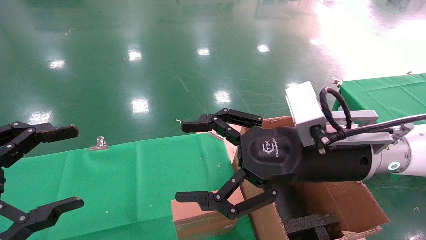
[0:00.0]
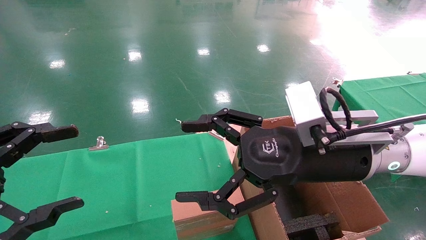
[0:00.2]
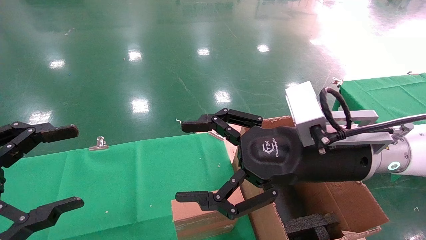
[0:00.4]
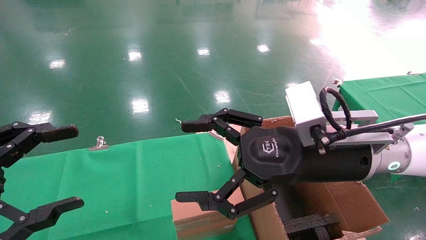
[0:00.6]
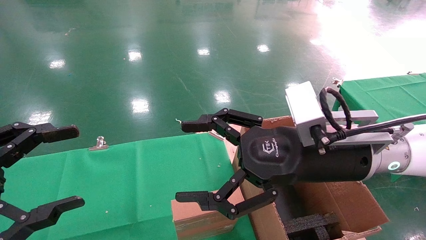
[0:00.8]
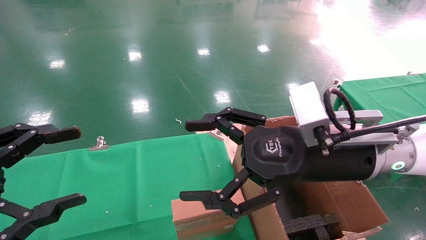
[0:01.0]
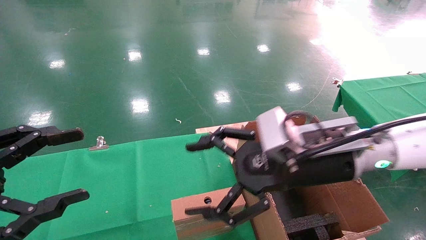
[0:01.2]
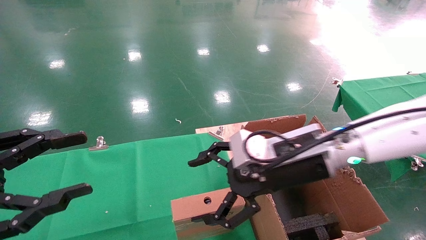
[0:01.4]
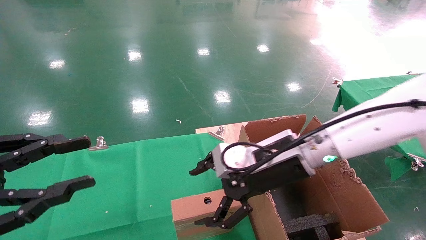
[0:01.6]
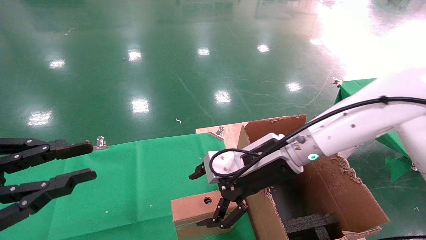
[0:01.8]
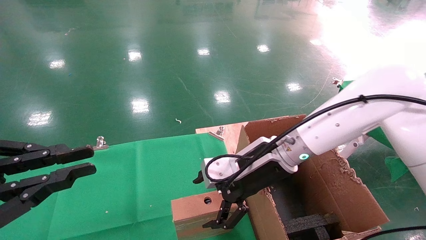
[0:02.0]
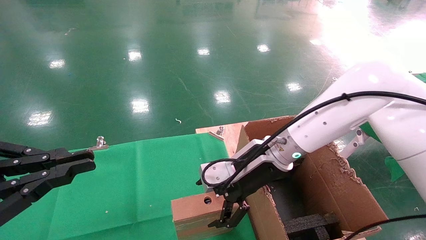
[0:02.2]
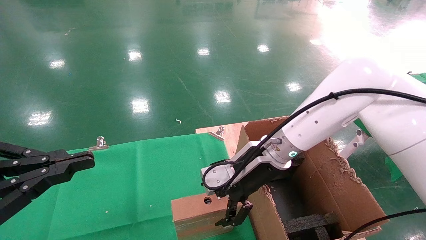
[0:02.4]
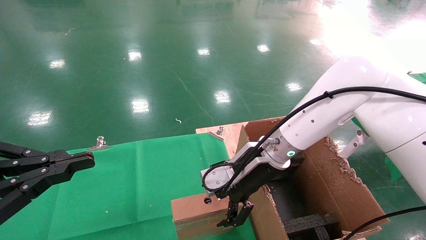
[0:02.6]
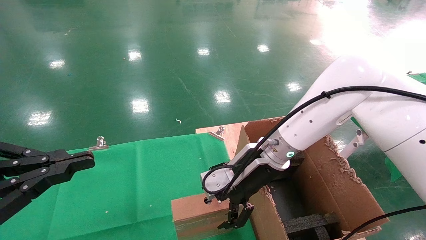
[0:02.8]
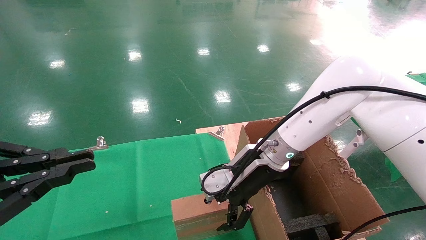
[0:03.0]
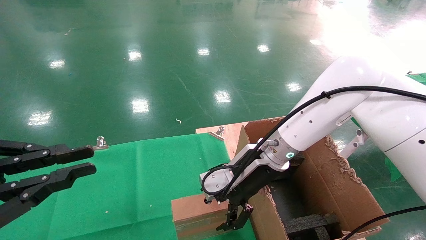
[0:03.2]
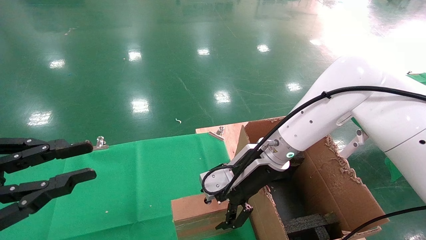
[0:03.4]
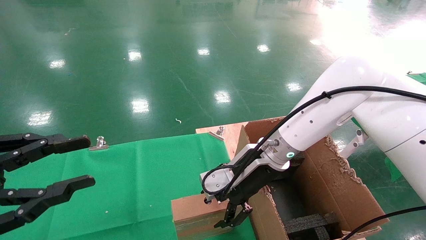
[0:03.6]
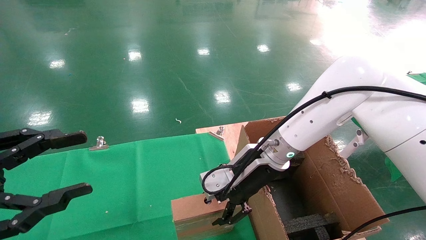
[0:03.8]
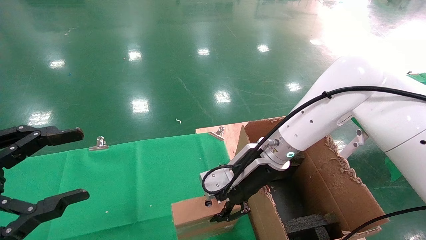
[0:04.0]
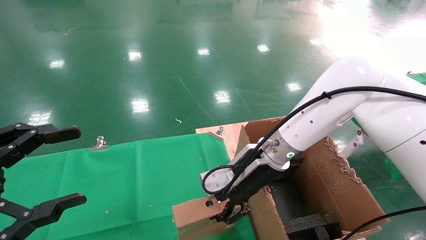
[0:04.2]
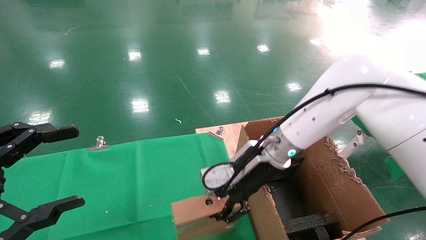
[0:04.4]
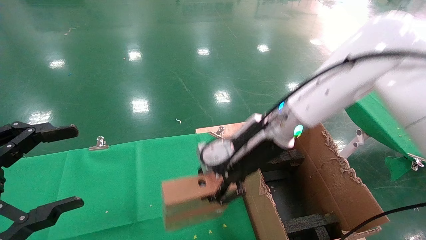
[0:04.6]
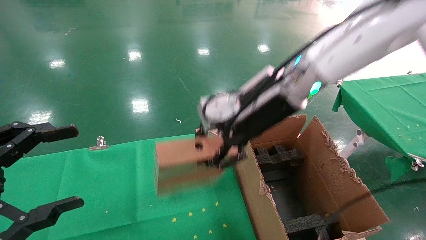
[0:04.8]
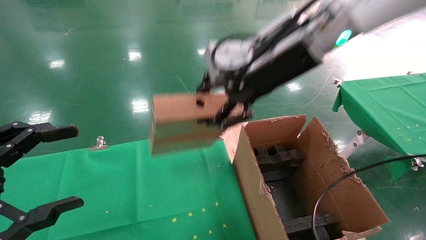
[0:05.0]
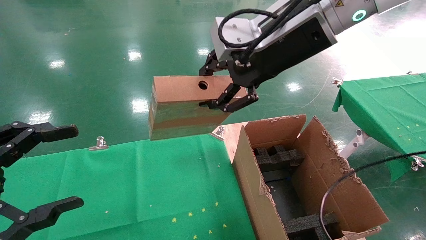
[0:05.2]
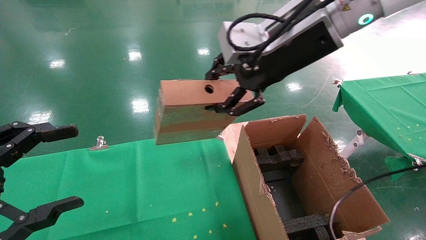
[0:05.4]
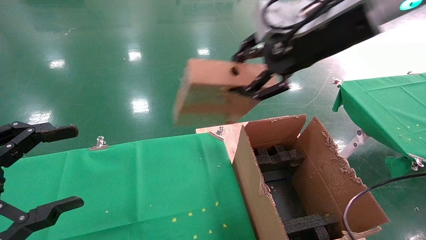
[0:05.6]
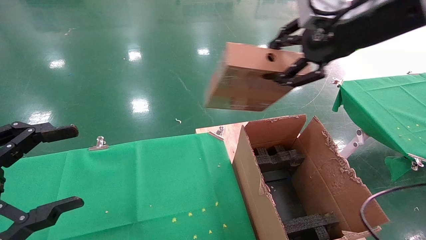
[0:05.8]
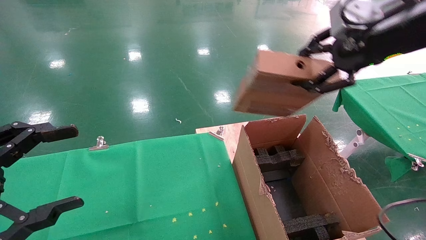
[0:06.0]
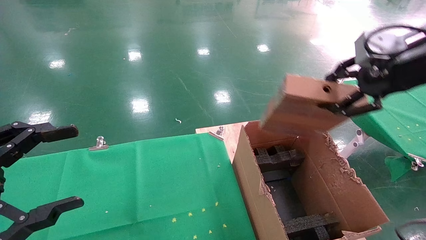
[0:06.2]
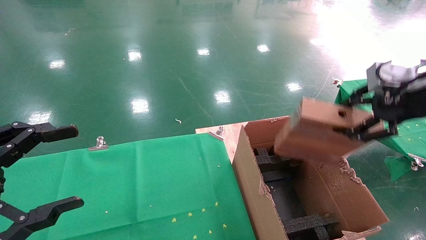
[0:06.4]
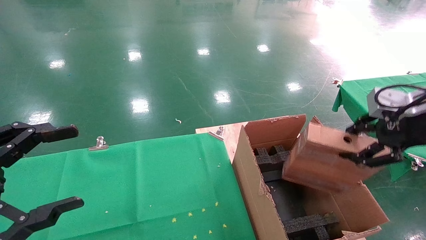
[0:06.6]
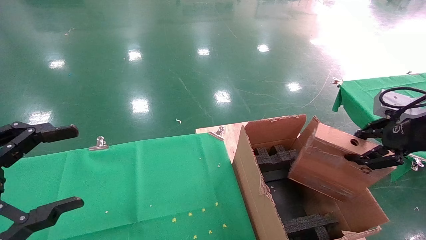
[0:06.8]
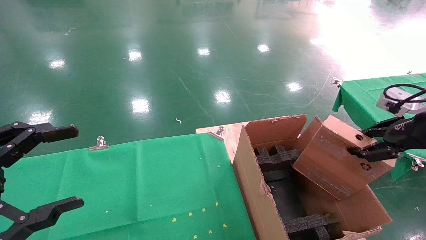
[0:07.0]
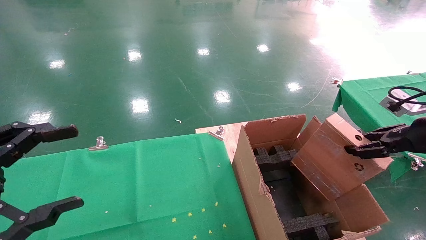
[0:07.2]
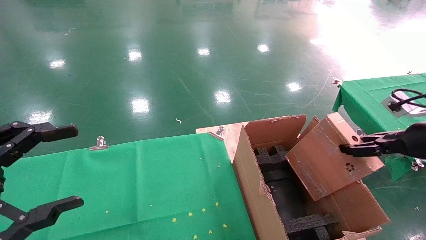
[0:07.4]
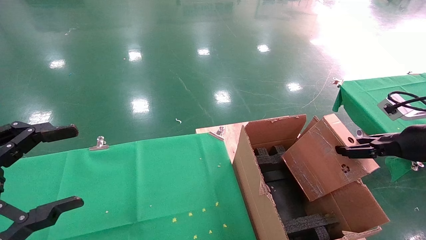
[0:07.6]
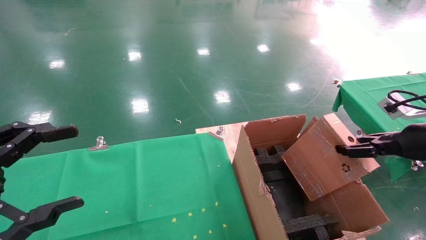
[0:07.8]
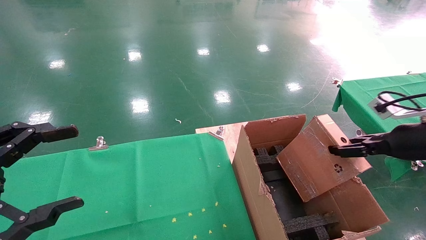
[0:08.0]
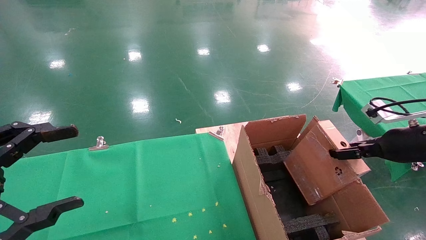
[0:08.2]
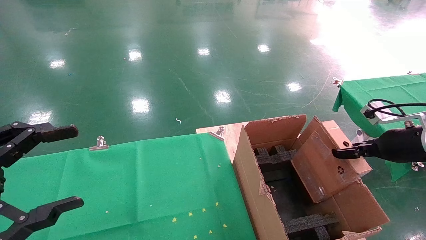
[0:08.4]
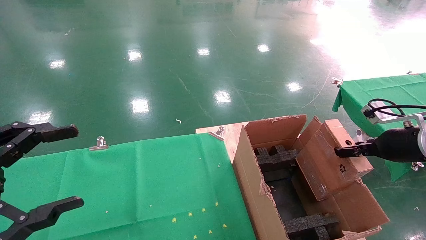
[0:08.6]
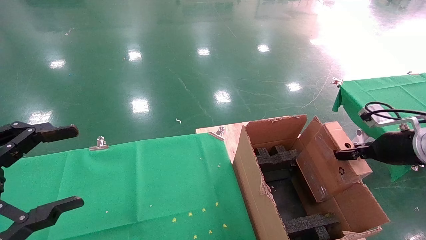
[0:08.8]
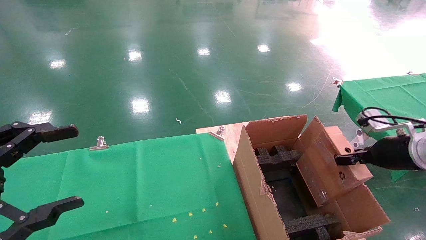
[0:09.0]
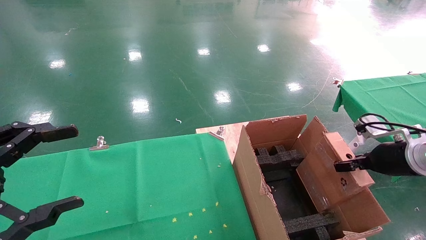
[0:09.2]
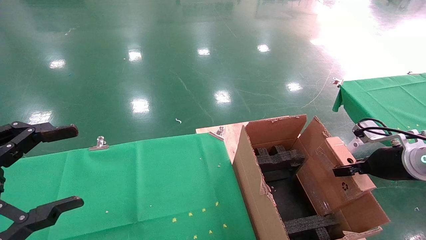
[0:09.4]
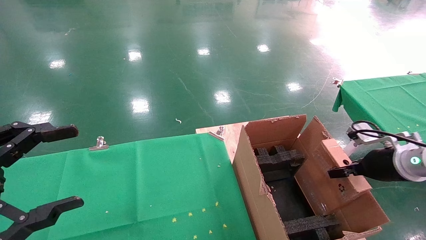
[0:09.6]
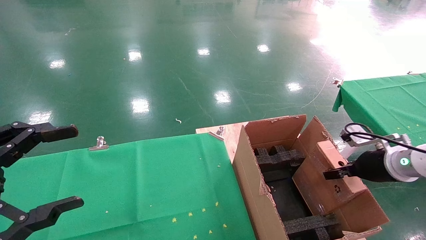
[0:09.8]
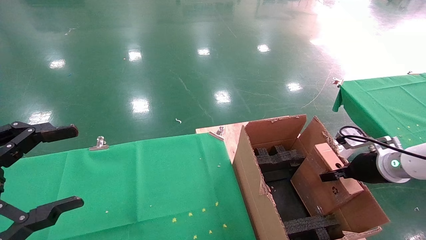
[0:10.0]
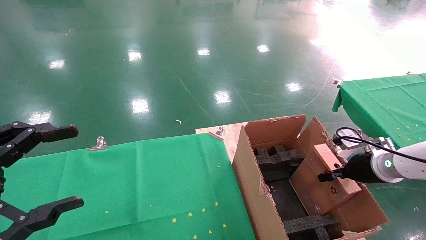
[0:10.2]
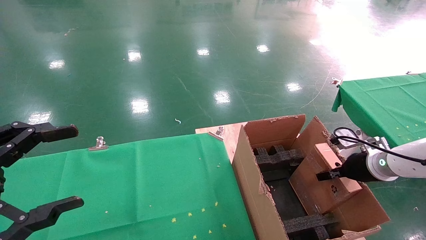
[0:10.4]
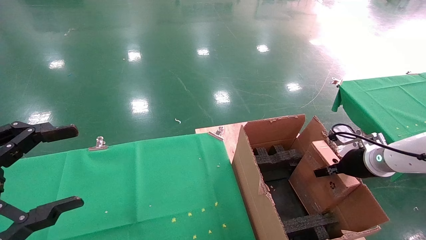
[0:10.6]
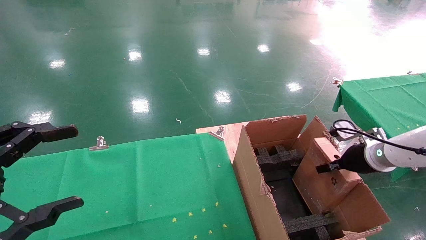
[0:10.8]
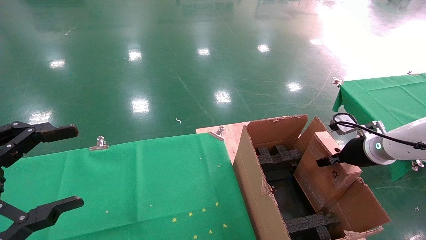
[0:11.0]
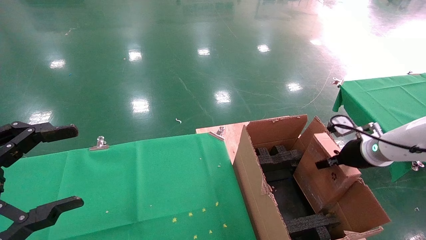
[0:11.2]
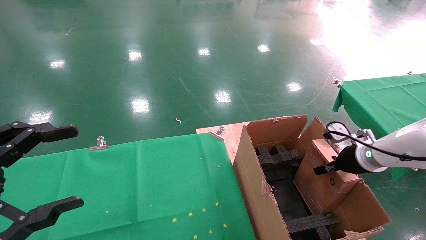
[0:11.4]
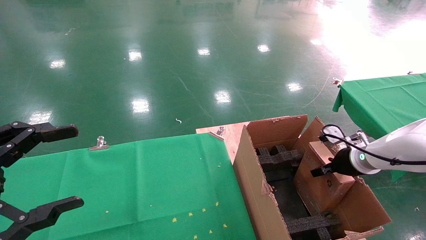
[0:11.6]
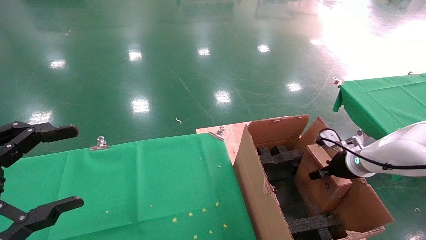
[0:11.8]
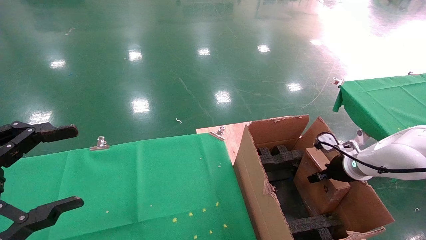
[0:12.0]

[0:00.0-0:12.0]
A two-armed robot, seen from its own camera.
Task of the whole recording: using a robotic arm to pick up a cardboard box and palace it the carton.
Step, 0:01.4 to 0:04.0: Pick up the mouse and the power cord paper box.
0:00.0 to 0:01.6: The left gripper closes up. The right gripper is displaced forward by some 5 cm.
0:01.6 to 0:03.0: The left gripper closes. Meanwhile the right gripper goes roughly 5 cm forward.
0:03.0 to 0:04.4: The left gripper opens up. Meanwhile the right gripper closes.
0:04.4 to 0:06.0: The right gripper heads upward, to the right and backward, covering roughly 30 cm.
0:06.0 to 0:07.6: The right gripper travels downward and to the right by approximately 25 cm.
0:07.6 to 0:09.0: The right gripper shifts by about 5 cm.
0:09.0 to 0:10.4: The right gripper heads downward and forward, covering about 10 cm.
0:10.4 to 0:12.0: The right gripper changes place by about 5 cm.

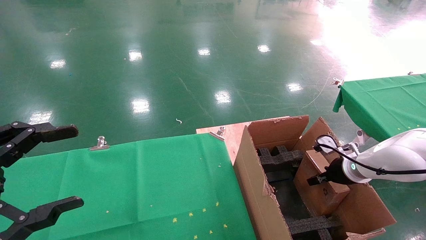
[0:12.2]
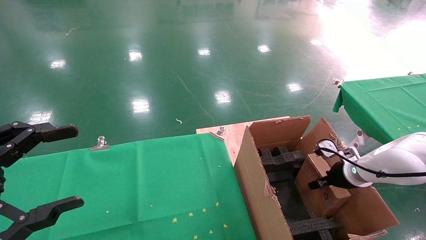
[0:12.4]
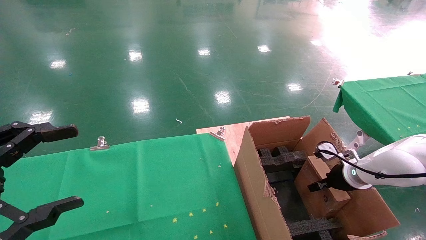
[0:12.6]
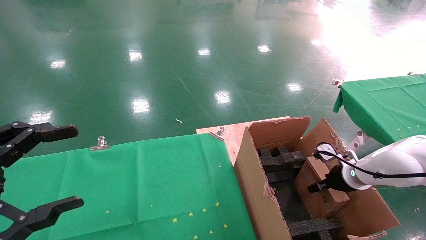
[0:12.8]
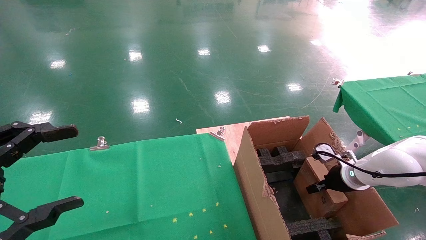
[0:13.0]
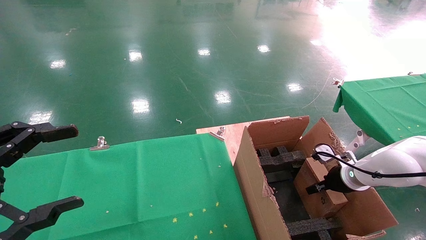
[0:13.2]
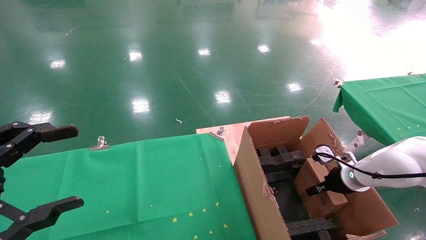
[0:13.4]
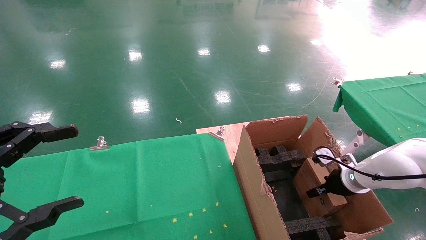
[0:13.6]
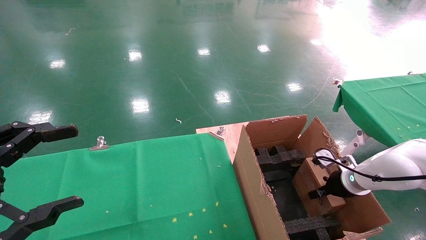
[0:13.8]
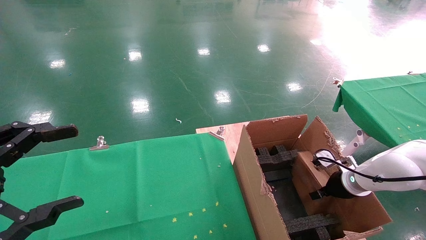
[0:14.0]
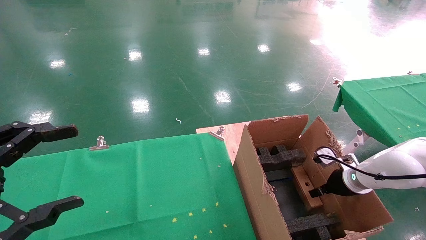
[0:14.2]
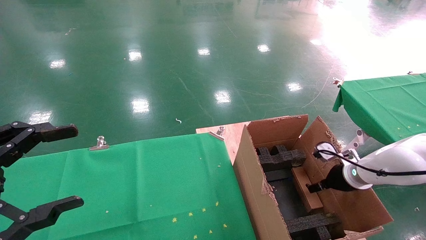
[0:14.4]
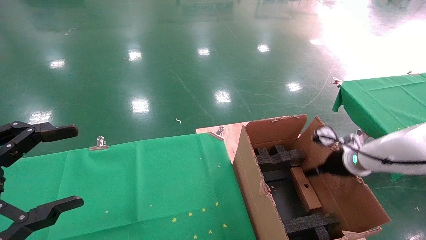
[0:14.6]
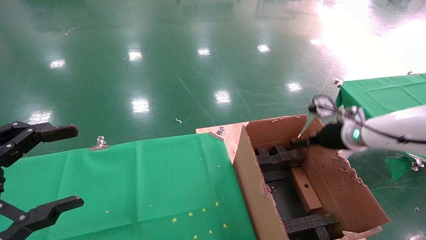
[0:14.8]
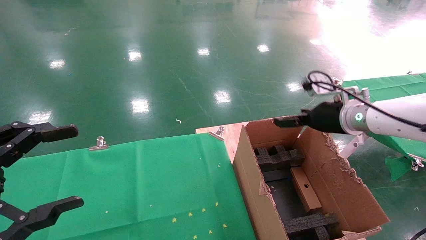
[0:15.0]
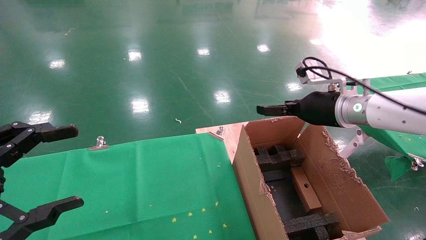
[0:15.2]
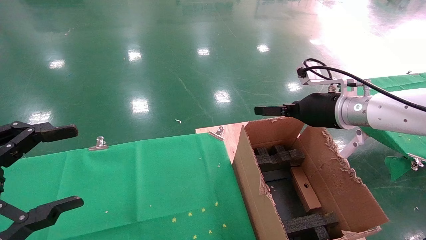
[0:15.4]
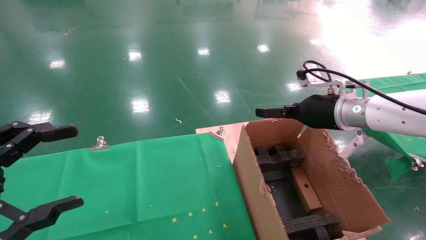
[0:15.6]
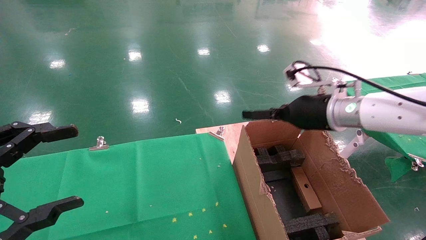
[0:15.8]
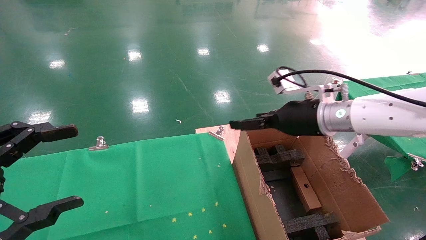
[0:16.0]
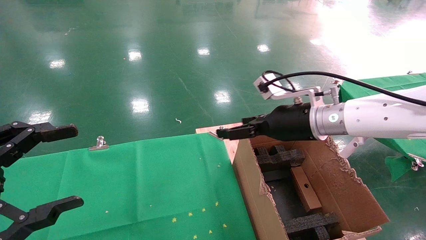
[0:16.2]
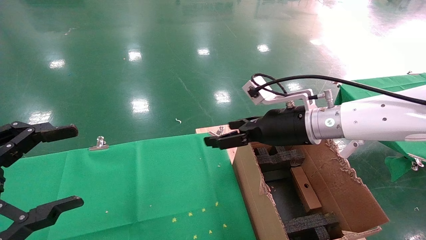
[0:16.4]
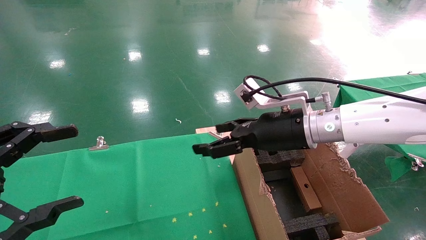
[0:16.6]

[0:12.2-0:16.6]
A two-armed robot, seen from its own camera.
Task of the whole recording: using a robotic arm to pick up a cardboard box and palace it the carton.
Step, 0:12.2 to 0:14.6: Place the mouse and the power cord paper box into the container.
0:12.2 to 0:13.6: The grippers stay close to where they were, moving slightly.
0:13.6 to 0:15.2: The right gripper goes roughly 20 cm upward and to the left, and opens its fingers.
0:15.2 to 0:16.6: The right gripper shifts about 10 cm to the left.
